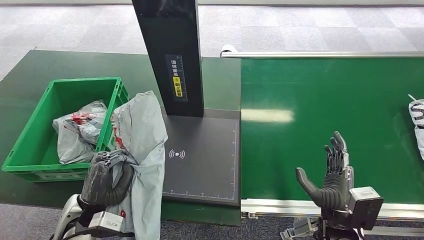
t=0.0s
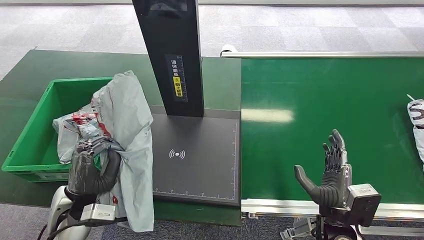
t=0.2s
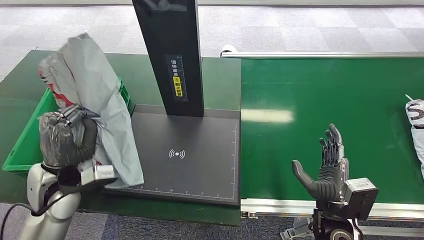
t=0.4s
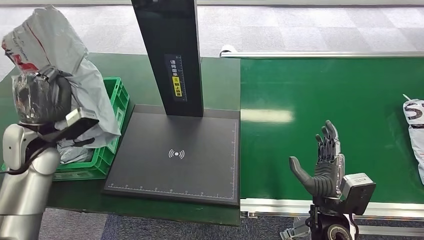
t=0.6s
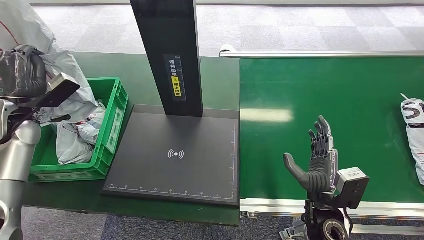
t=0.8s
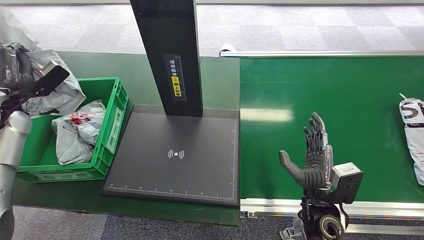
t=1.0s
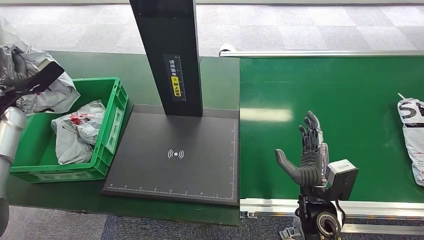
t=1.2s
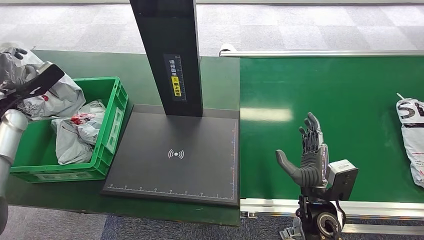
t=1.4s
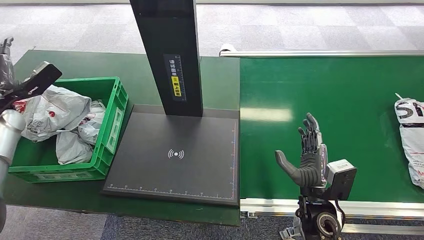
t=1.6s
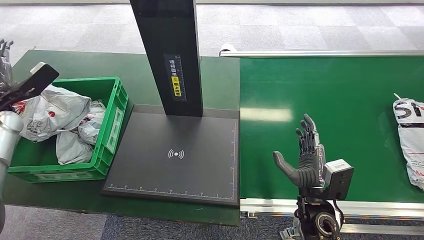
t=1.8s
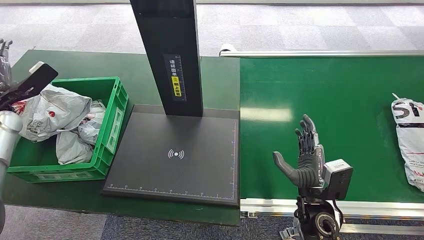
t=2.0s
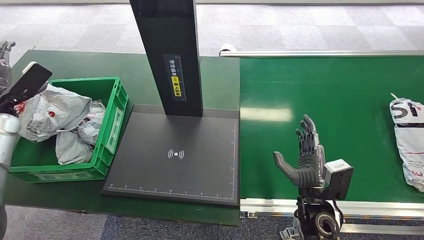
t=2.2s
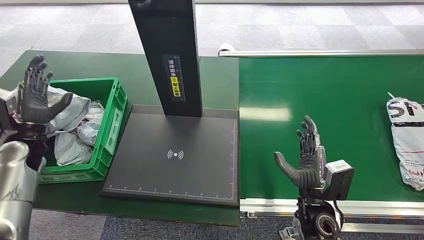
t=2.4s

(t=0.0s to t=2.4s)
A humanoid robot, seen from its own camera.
Step, t=0.8s - t=2.4s: Place the package into the parcel locker.
t=1.2s - t=2.4s: The left hand goes roughly 10 cm downward and to the right.
